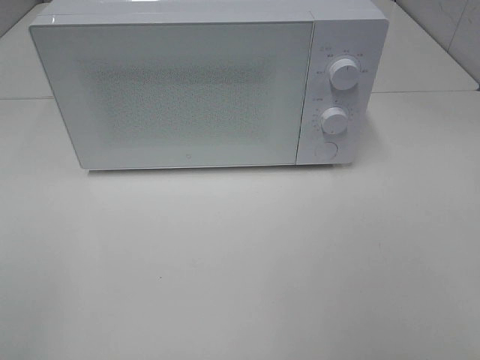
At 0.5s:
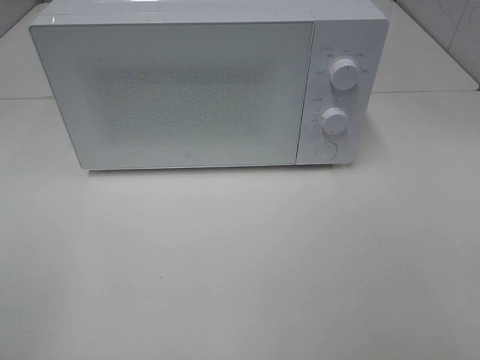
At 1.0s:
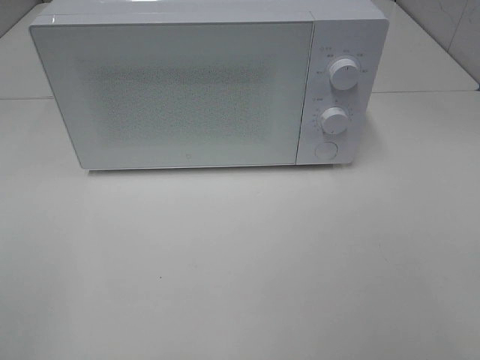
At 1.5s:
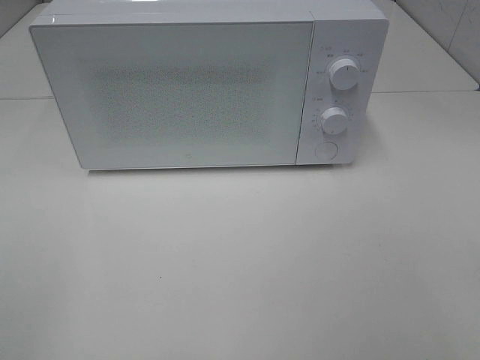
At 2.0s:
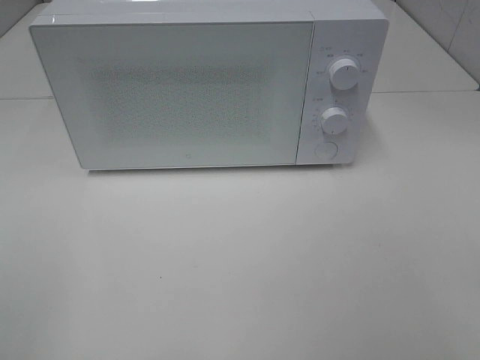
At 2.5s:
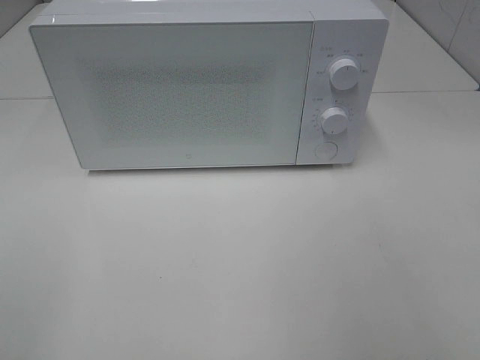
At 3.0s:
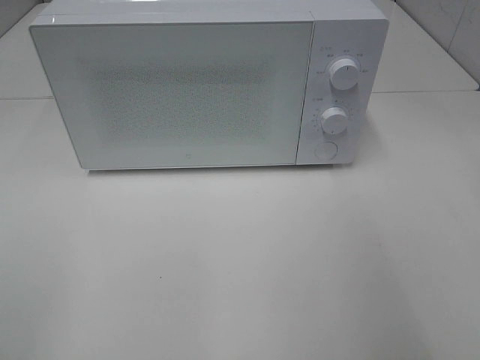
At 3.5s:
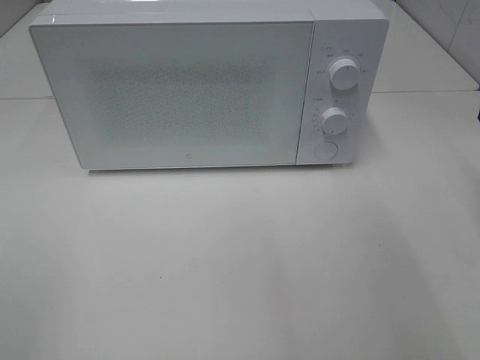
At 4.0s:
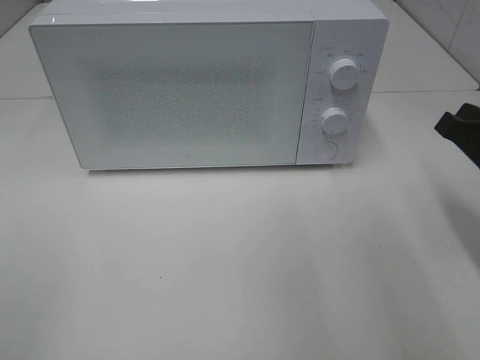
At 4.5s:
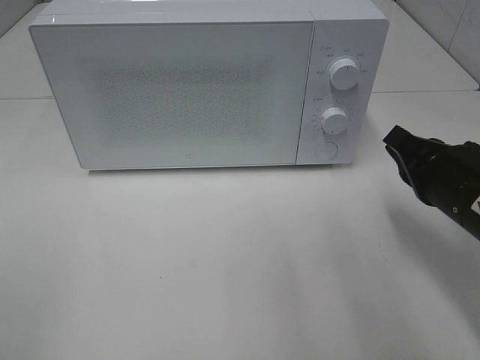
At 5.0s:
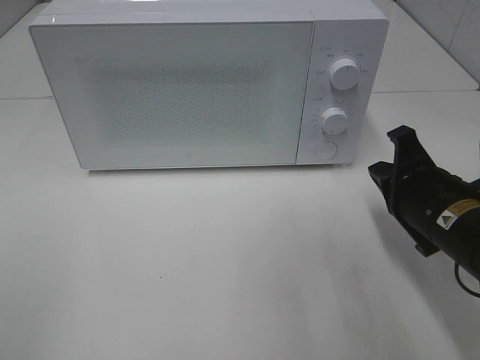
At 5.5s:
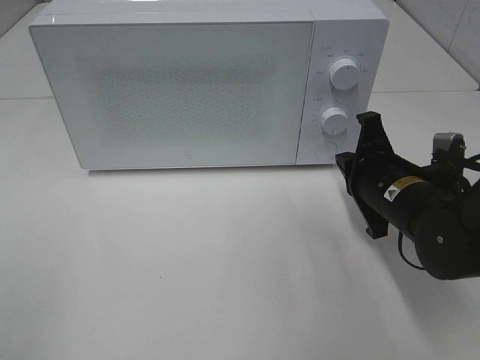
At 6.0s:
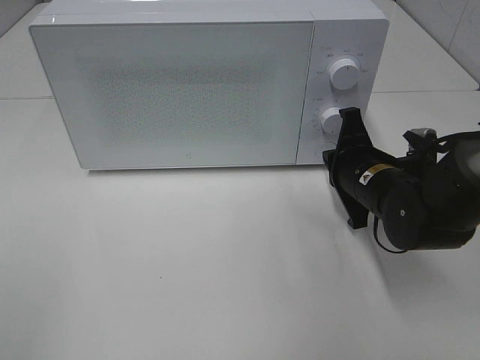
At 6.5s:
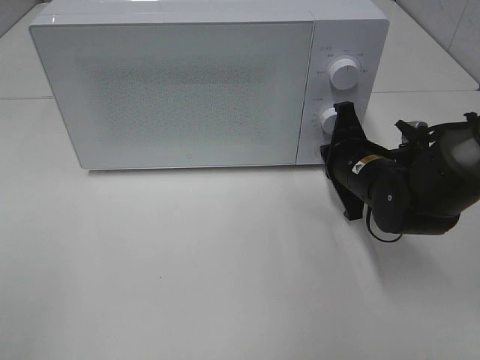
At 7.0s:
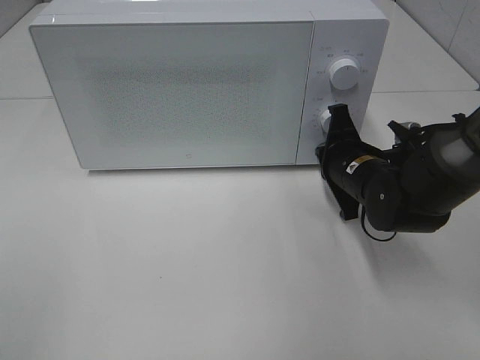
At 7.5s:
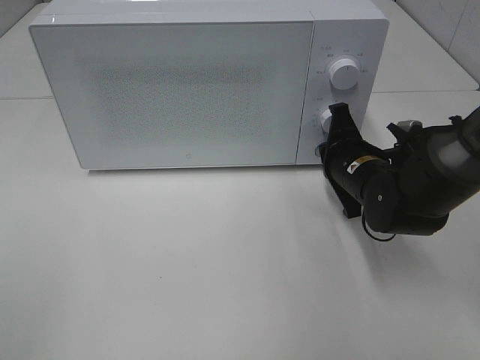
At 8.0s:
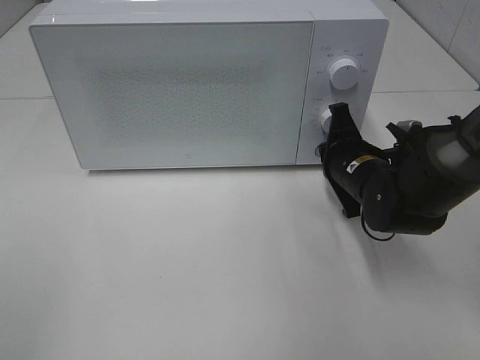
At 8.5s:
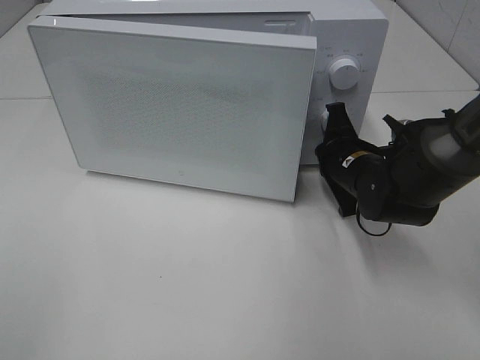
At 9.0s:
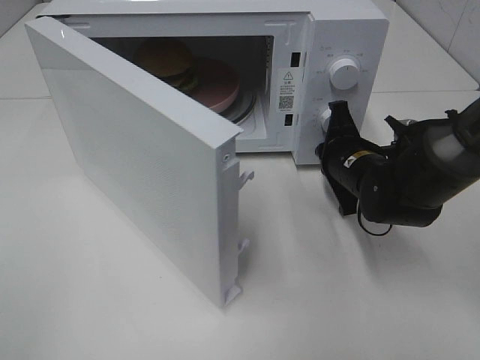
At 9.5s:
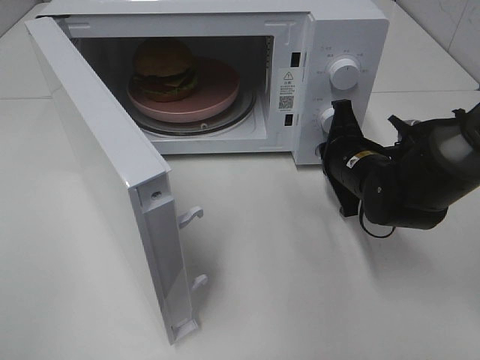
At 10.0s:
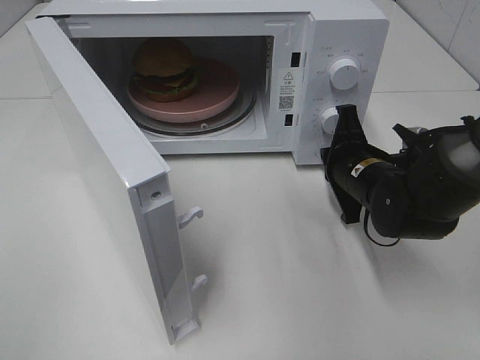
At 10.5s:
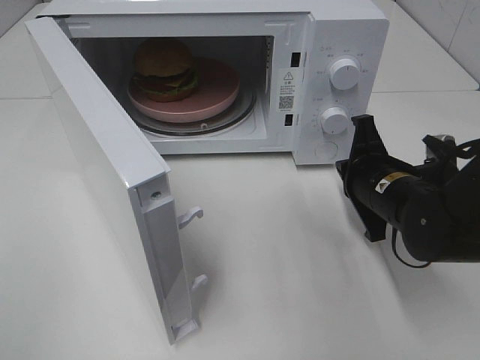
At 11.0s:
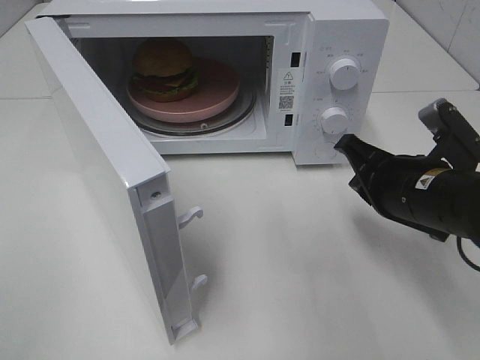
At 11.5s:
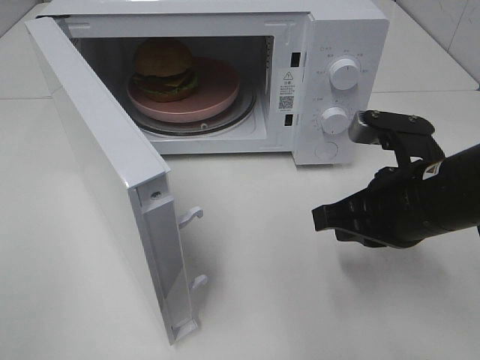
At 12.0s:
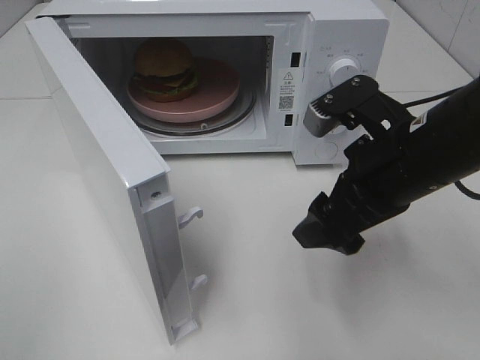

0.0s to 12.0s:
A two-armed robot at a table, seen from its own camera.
Task of the whole recording: Heat the burger.
Step, 0.0s to 9.5s: Right hand: press the switch.
2.0s to 4.0s: The right gripper shifts some 25 cm forward and downward, and closes its fingers.
4.0s to 6.0s: The right gripper goes approximately 15 cm to the left, forward and downward.
6.0s to 8.0s: There are only small adjustments of the grippers.
10.0s to 12.0s: The right gripper moves upward and backward, roughly 15 cm, and opens.

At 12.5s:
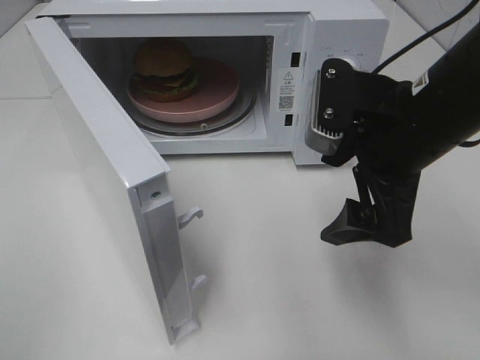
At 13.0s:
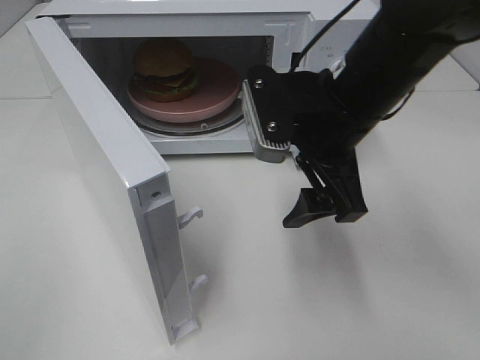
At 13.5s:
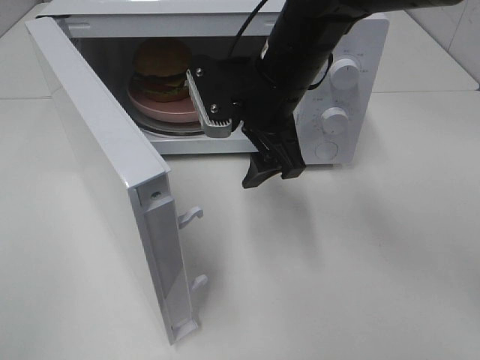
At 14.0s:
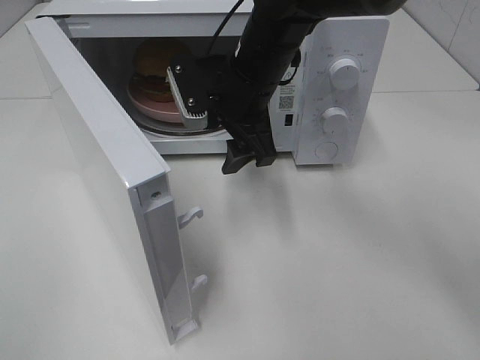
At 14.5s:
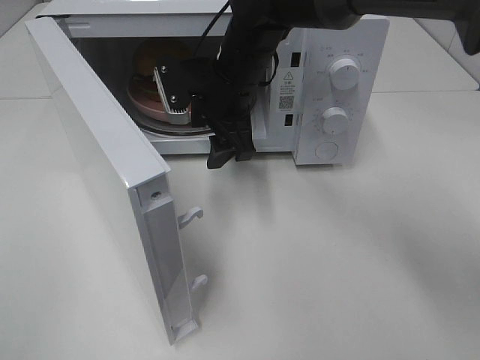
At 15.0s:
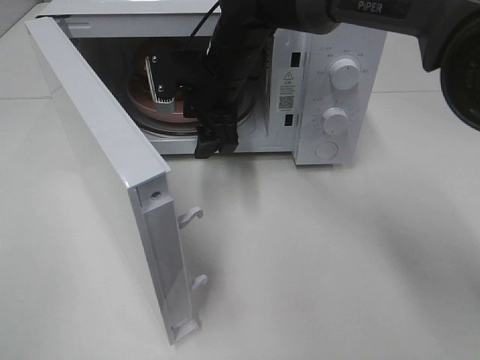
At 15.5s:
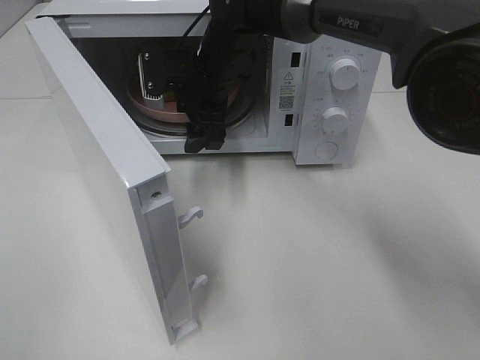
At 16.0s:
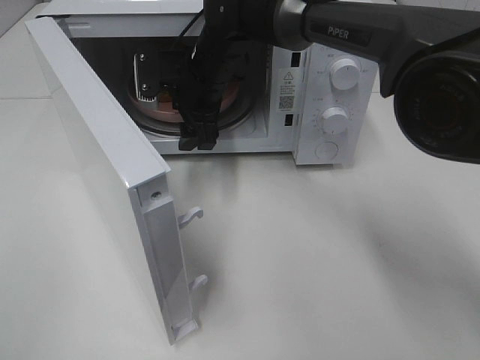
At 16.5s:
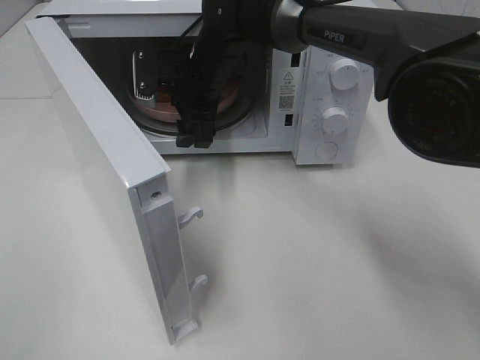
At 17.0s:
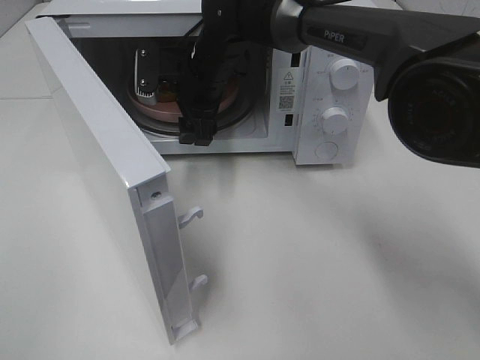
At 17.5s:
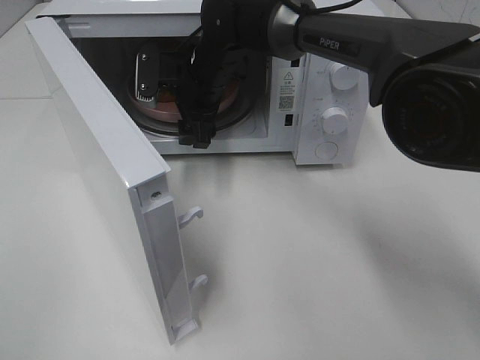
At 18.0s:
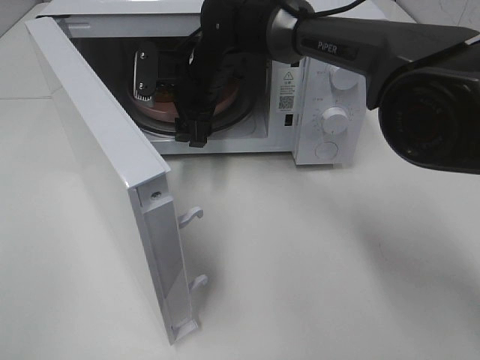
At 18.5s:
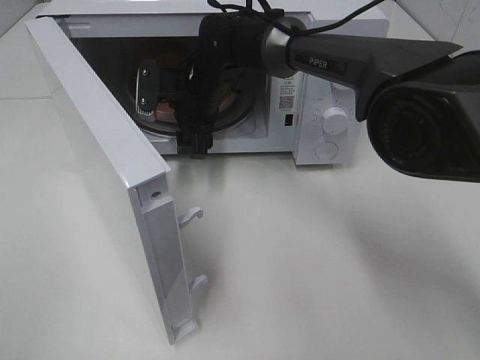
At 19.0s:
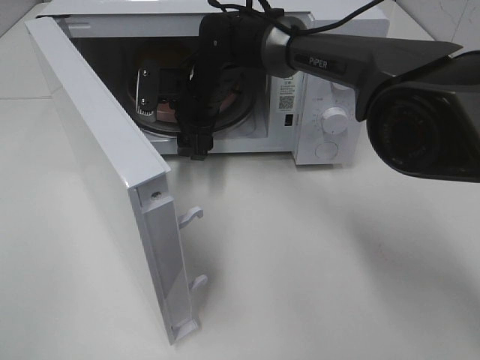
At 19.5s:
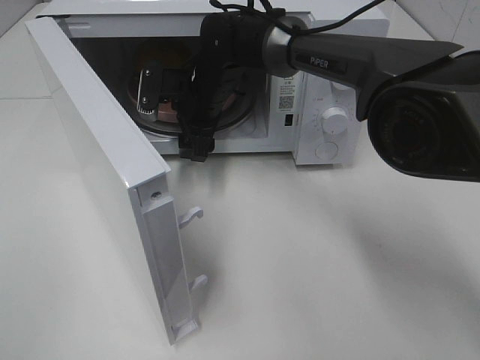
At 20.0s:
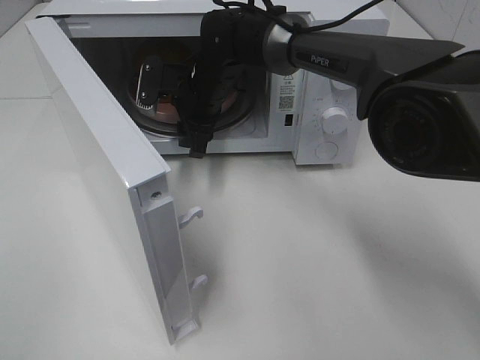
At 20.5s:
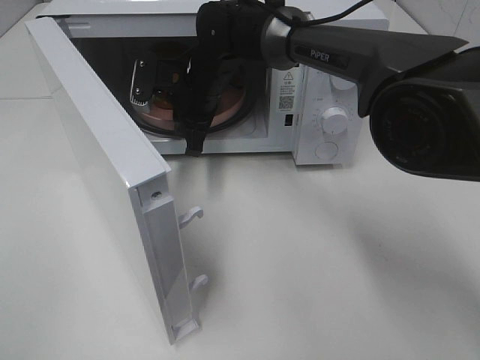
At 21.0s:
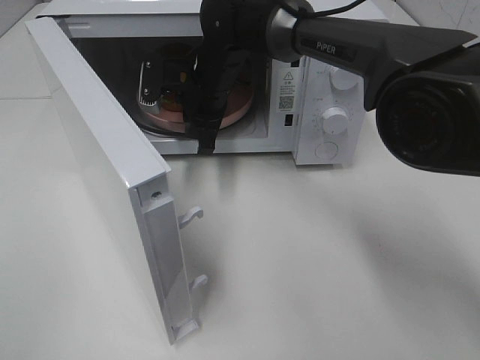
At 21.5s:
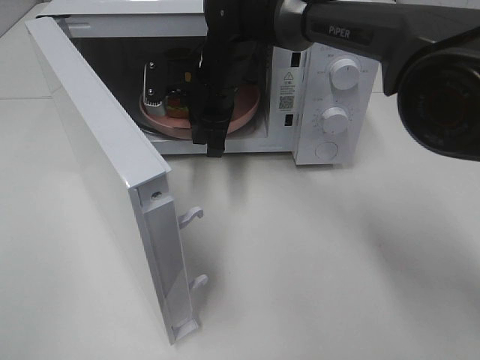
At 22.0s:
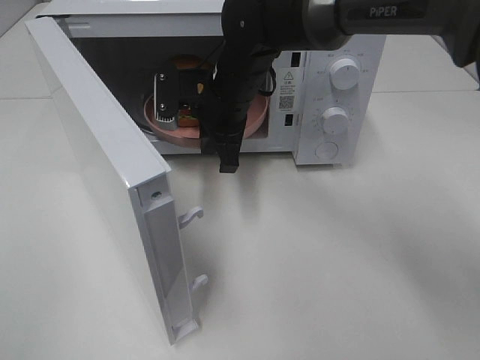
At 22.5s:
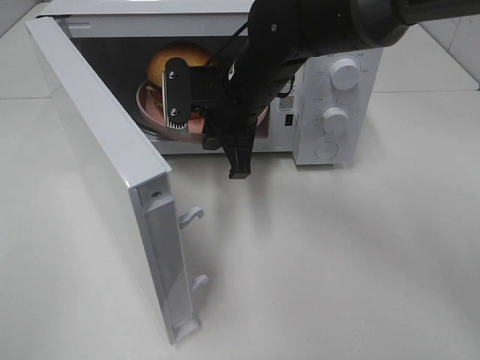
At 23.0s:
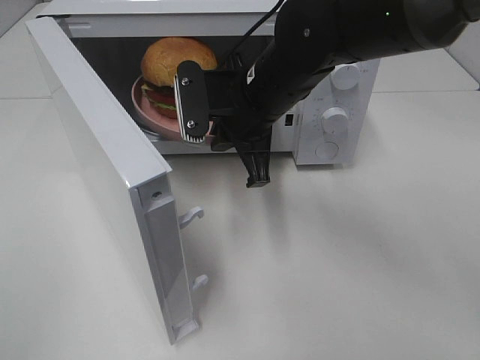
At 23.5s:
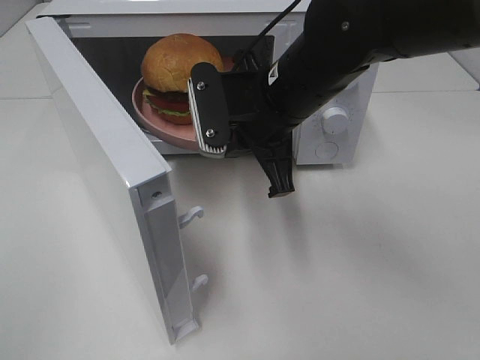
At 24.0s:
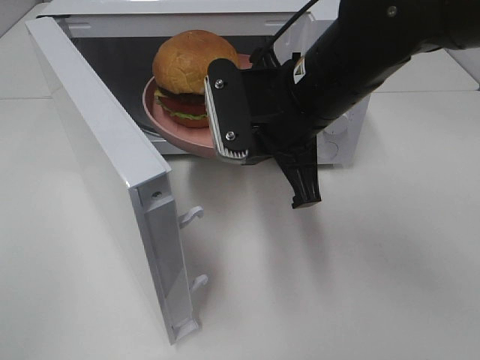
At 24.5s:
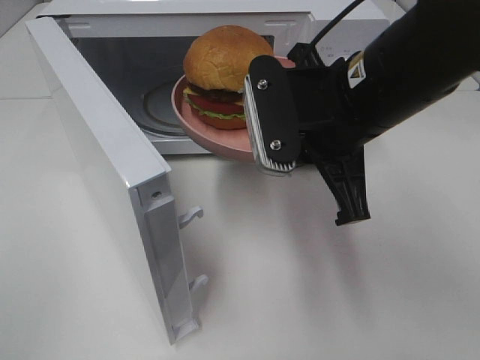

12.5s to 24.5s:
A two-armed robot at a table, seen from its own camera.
Task of the whole recording: Heat the burger.
Step, 12.5s to 20.0s: Right hand: grab the plate with the hamburger.
12.5s to 14.5s: The right gripper is displaced forward and to the left by about 20 cm.
14.5s to 16.5s: The right gripper ends up about 5 cm from where it was.
16.5s to 18.5s: The grippers make only small movements.
18.5s to 20.5s: The right gripper closes its fingers.
20.5s to 22.5s: The right gripper heads backward and to the right, covering about 10 cm.
22.5s to 24.5s: The right gripper heads backward, to the right and upward, covering roughly 15 cm.

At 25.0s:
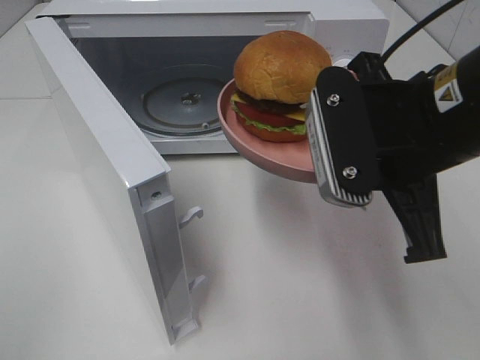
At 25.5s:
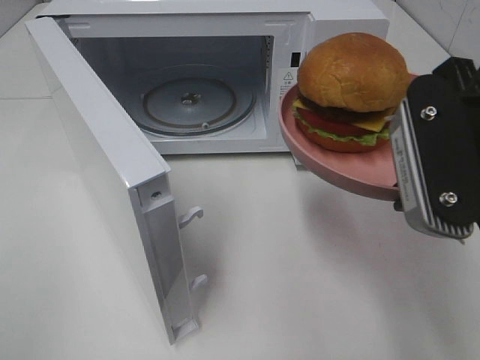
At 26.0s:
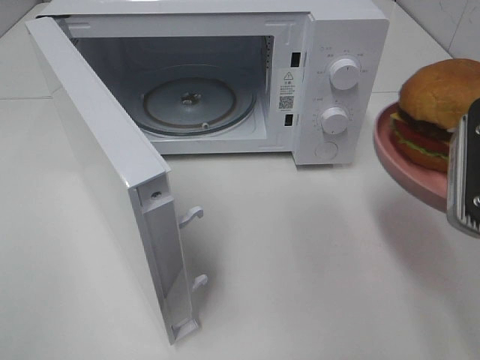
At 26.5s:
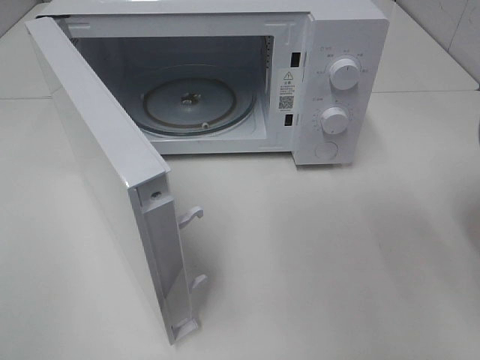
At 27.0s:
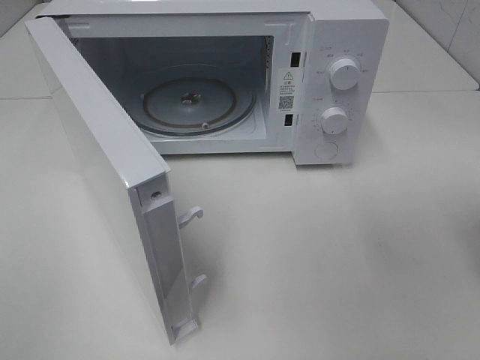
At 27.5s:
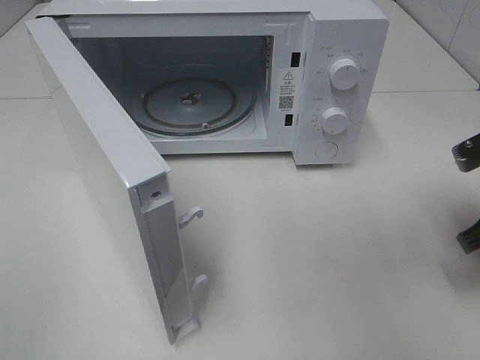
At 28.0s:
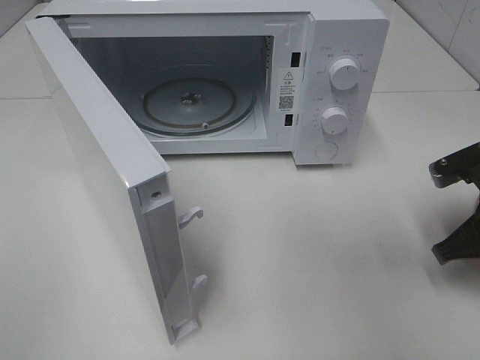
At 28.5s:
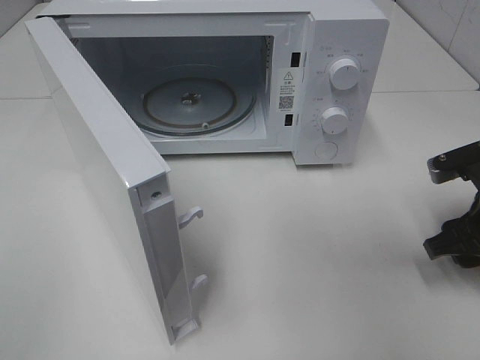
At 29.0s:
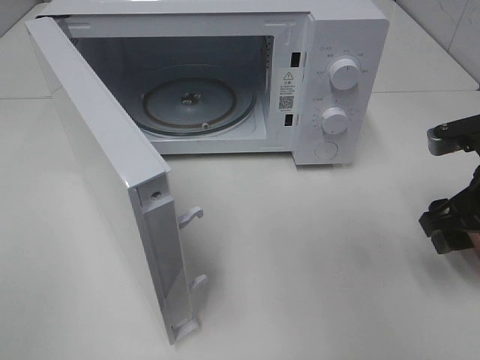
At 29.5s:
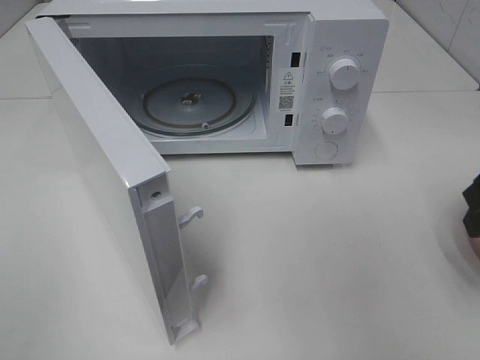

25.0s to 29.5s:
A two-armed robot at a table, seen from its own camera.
Task of the whole recording: Heat the burger.
Step, 25.0s to 28.0s: Right hand: place the plate on the table.
25.0s to 27.0s: The right gripper travels to the right by some 15 cm.
27.0s to 29.5s: The right gripper moves about 10 cm downward and comes back, and opens.
